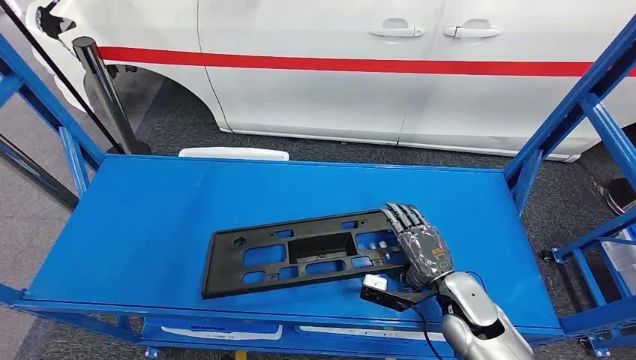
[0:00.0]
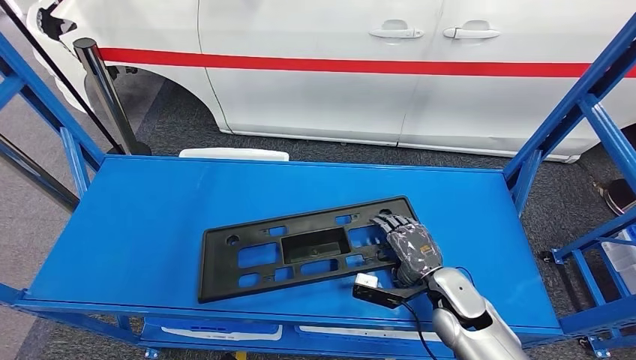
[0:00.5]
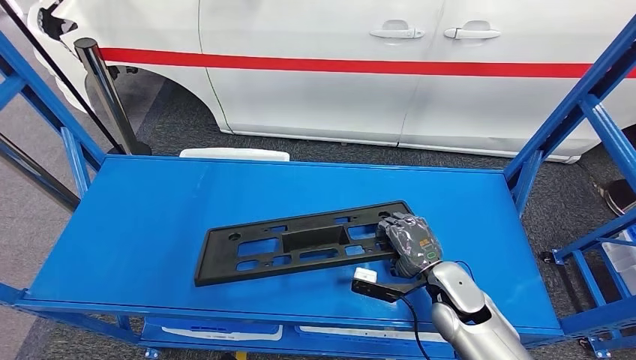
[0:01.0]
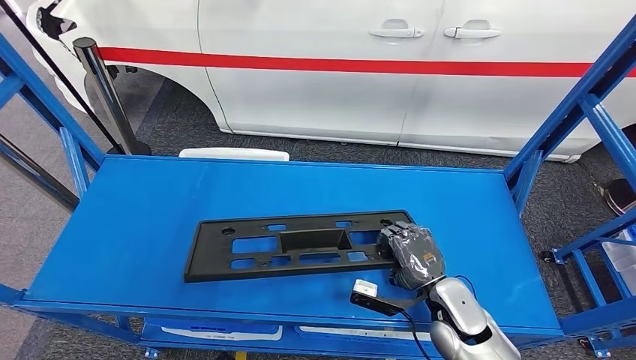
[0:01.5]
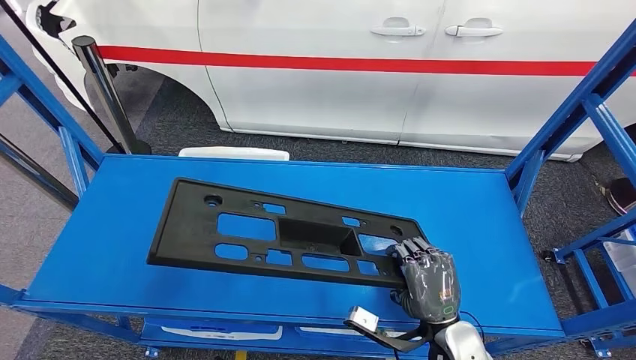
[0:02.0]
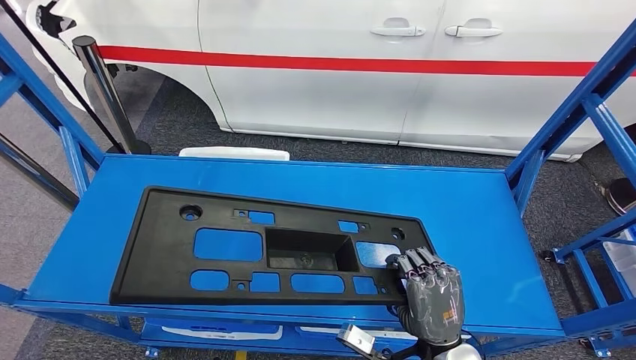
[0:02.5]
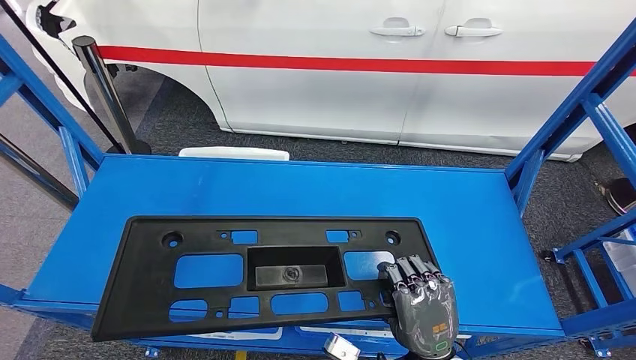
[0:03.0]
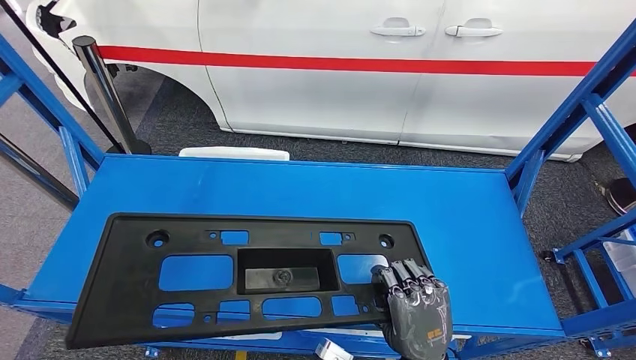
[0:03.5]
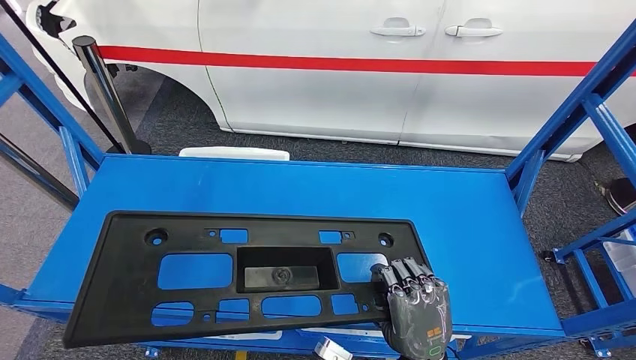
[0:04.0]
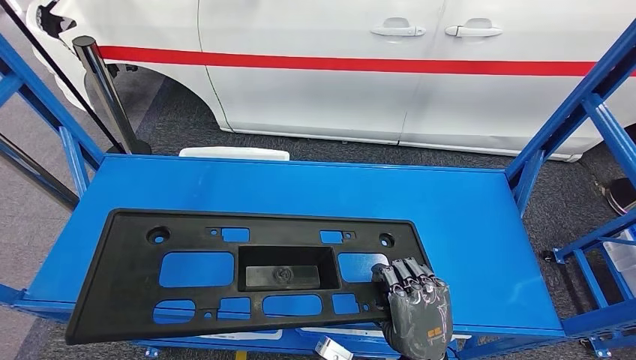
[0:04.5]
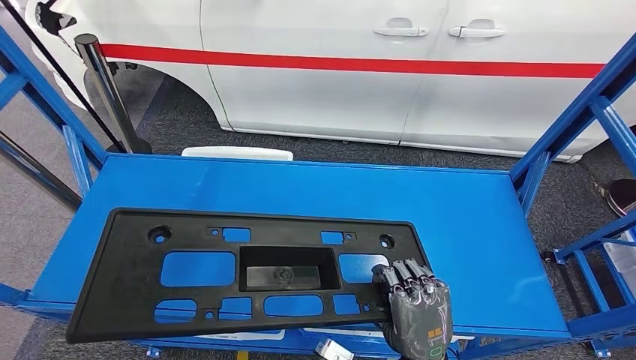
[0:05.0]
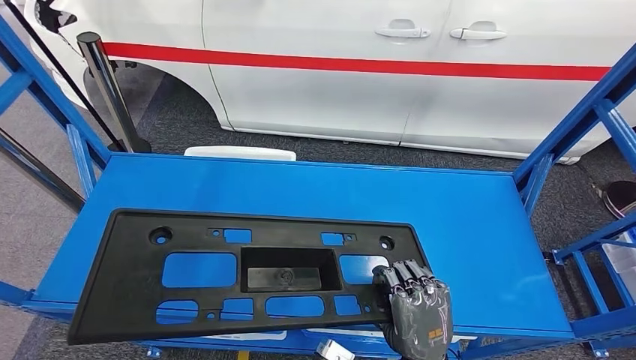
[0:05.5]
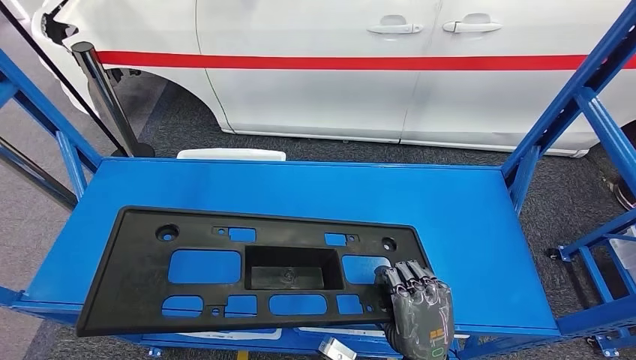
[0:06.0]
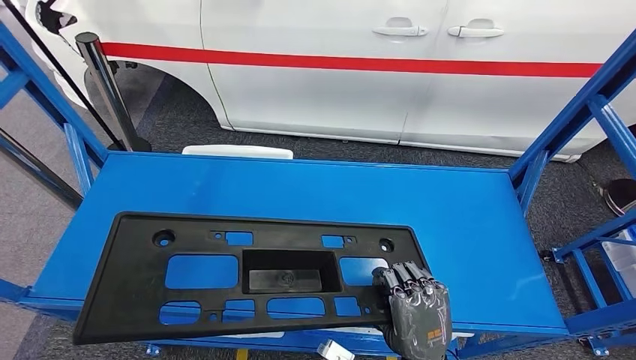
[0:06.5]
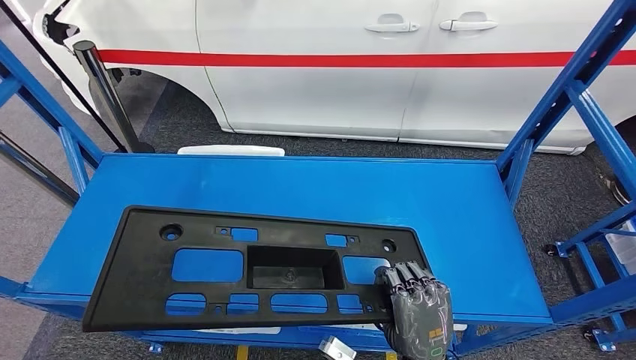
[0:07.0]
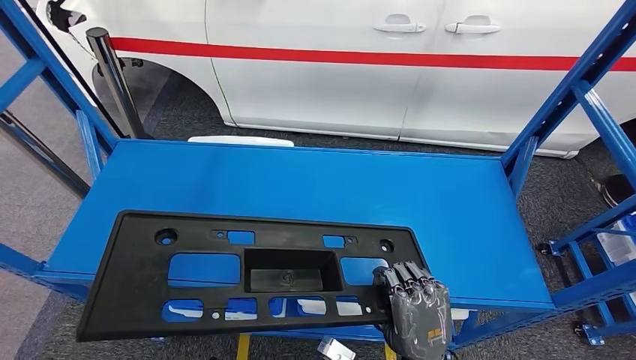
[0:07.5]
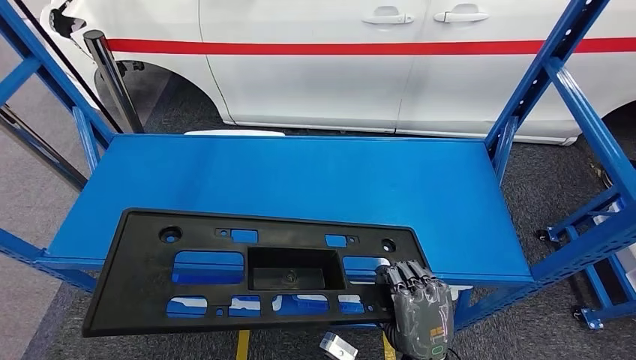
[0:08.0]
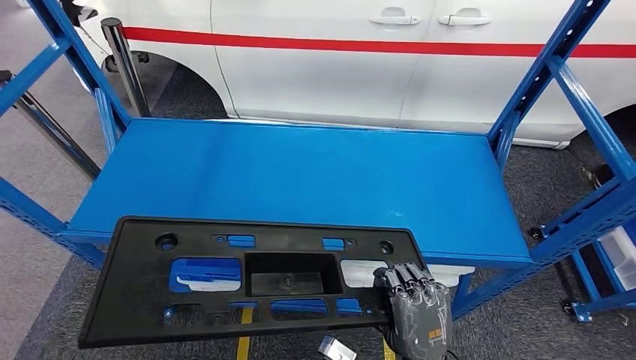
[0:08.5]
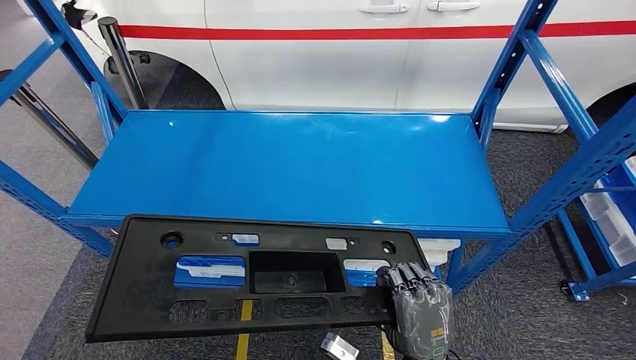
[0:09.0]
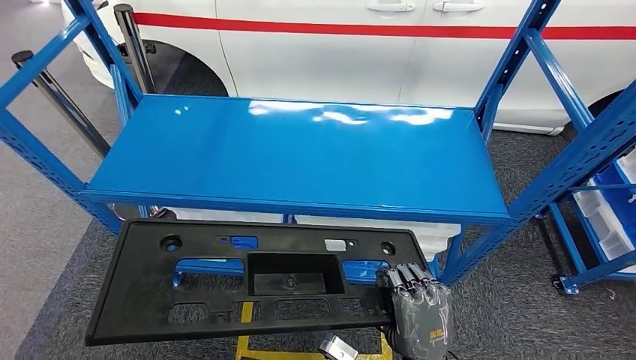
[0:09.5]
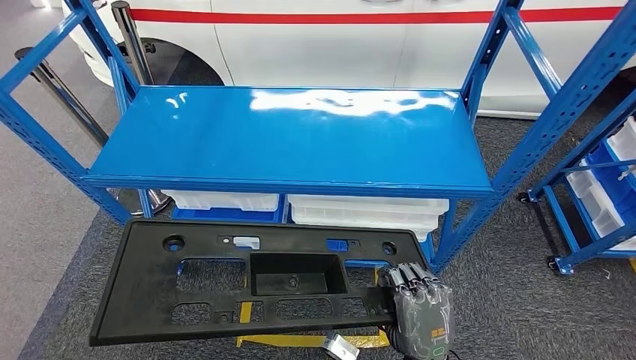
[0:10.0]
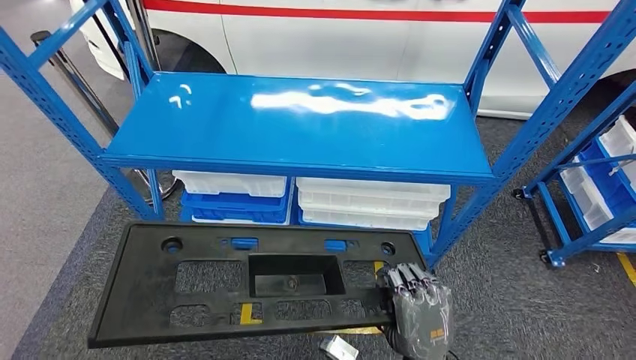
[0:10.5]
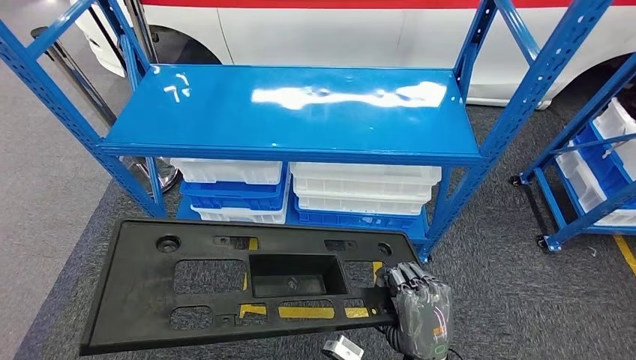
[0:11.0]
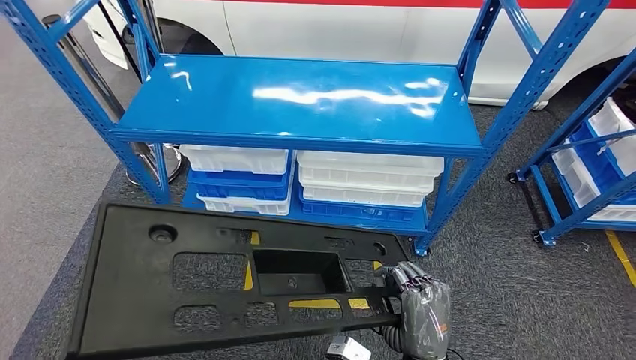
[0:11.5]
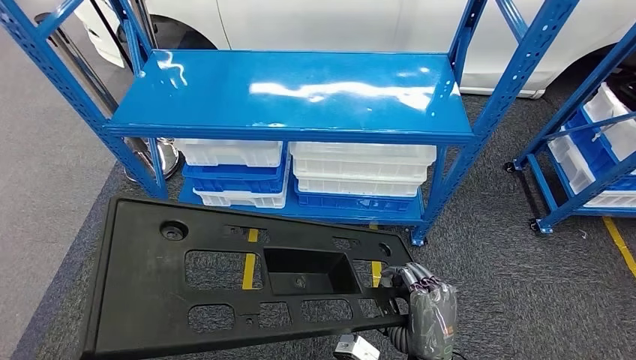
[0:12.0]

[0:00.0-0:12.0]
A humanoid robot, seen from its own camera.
Step, 0:00.0 to 0:10.5: Pick up the large material from the shelf.
0:02.0 to 0:04.0: The right hand travels backward and to the left by approximately 10 cm.
0:04.0 to 0:06.0: Both hands stay put.

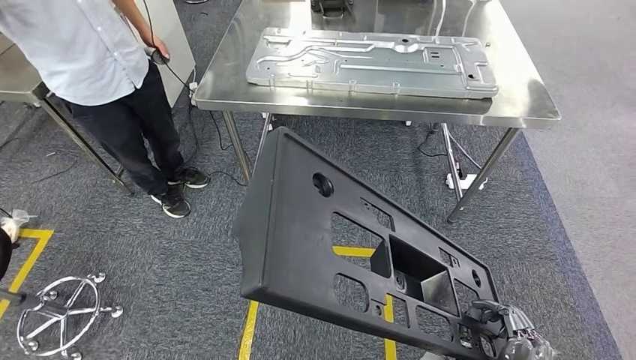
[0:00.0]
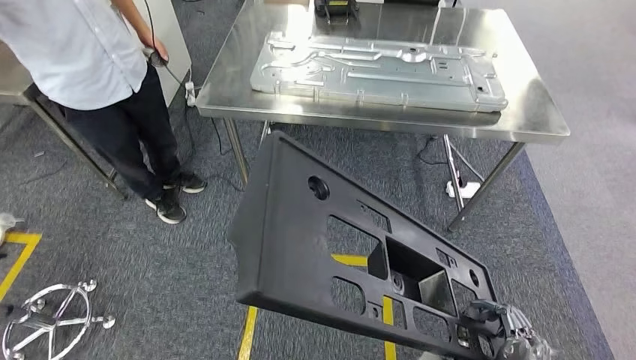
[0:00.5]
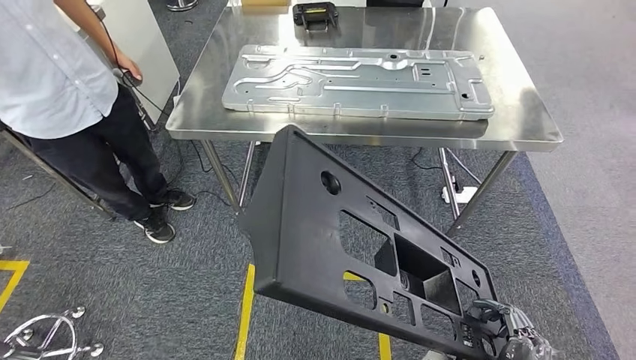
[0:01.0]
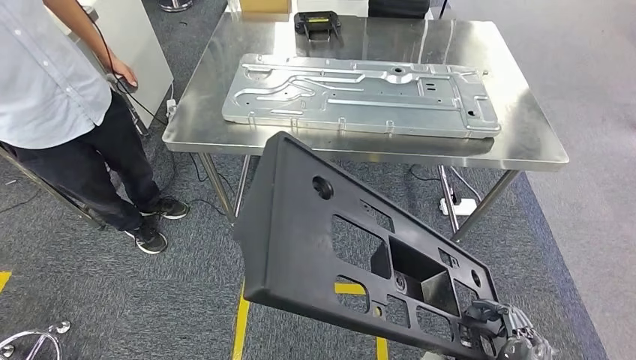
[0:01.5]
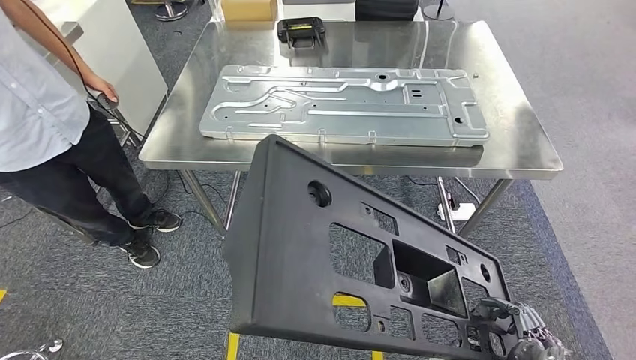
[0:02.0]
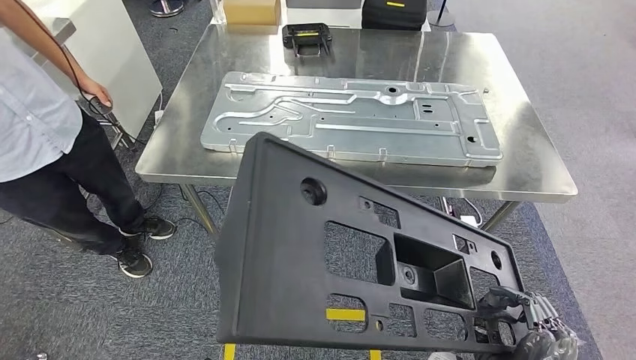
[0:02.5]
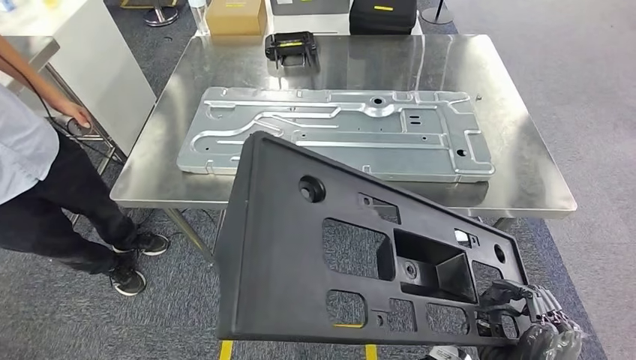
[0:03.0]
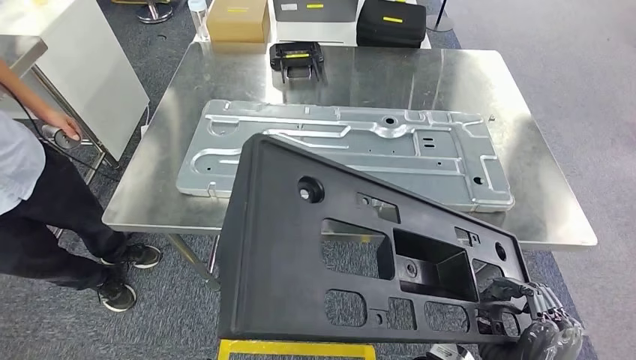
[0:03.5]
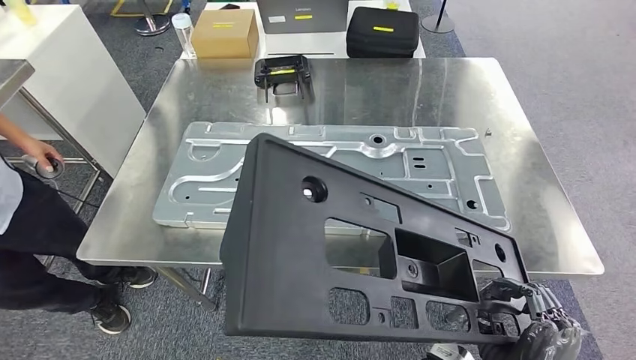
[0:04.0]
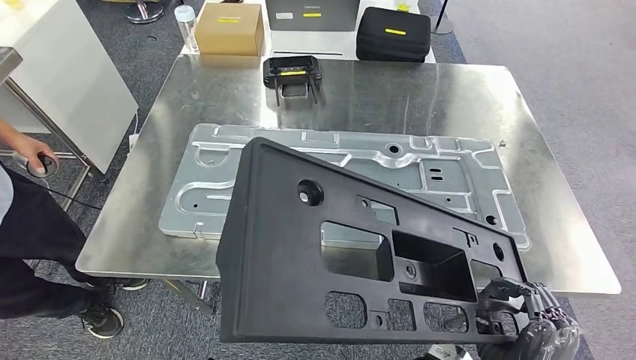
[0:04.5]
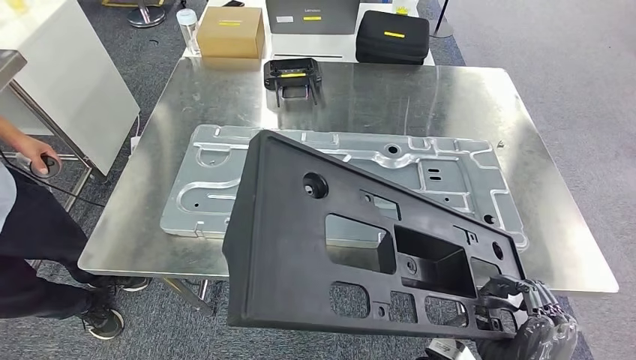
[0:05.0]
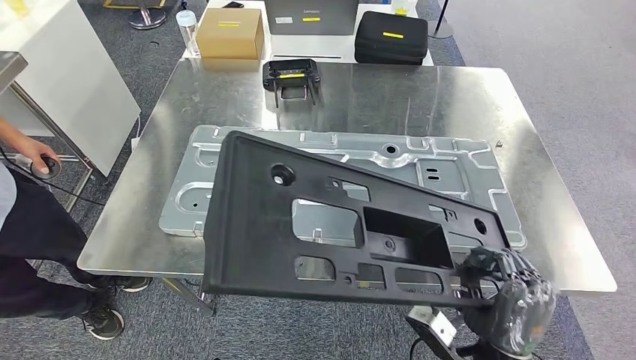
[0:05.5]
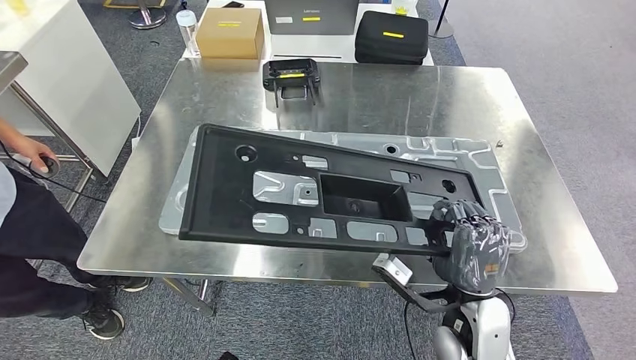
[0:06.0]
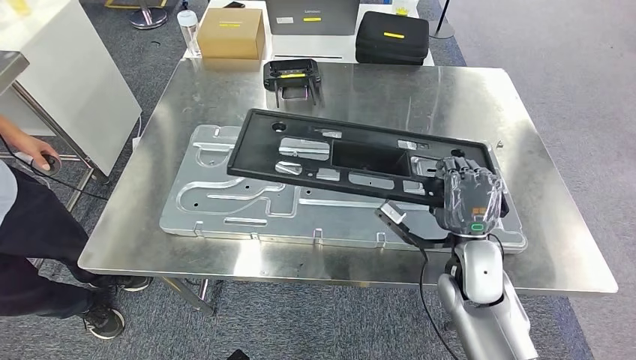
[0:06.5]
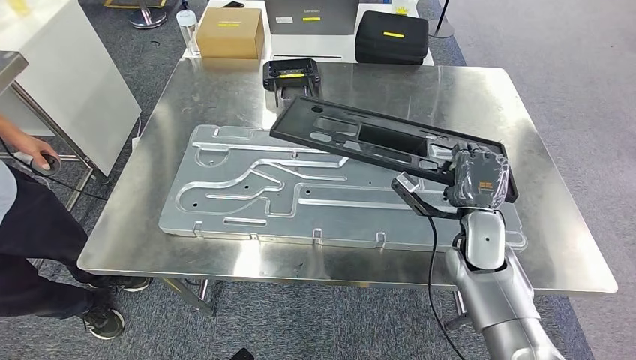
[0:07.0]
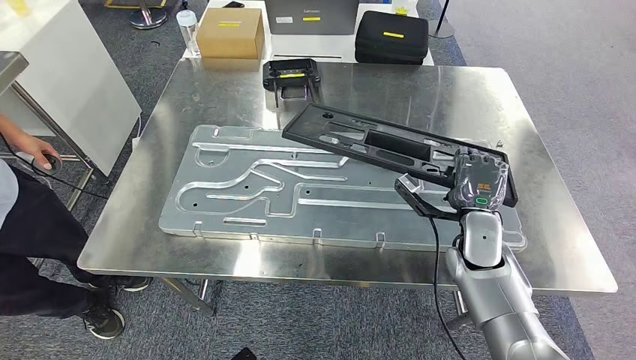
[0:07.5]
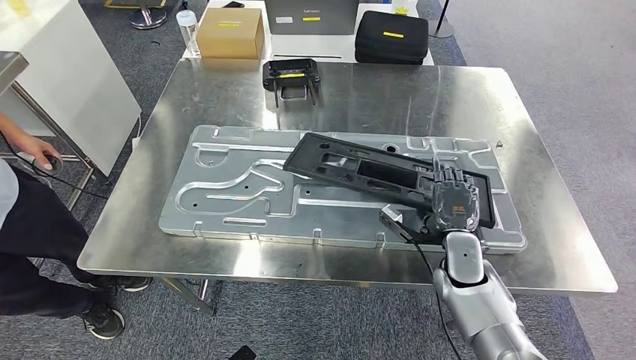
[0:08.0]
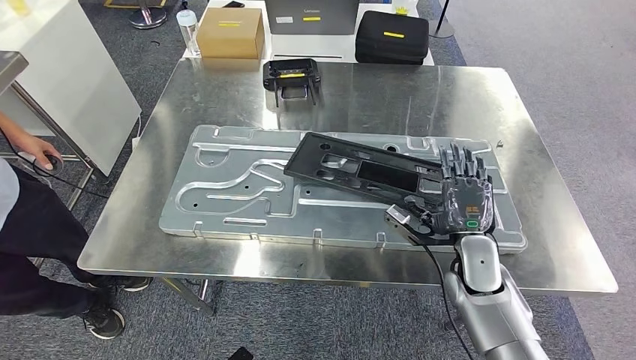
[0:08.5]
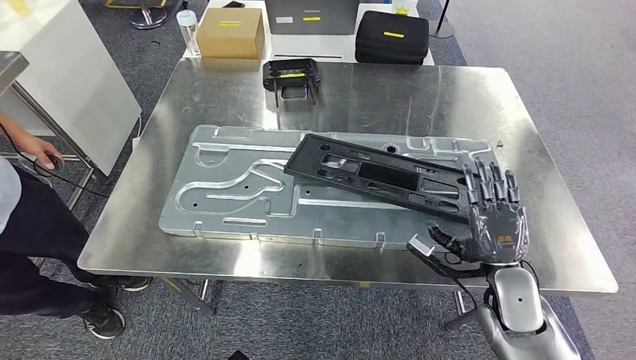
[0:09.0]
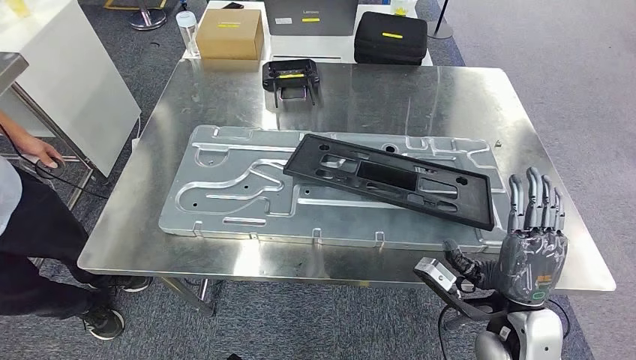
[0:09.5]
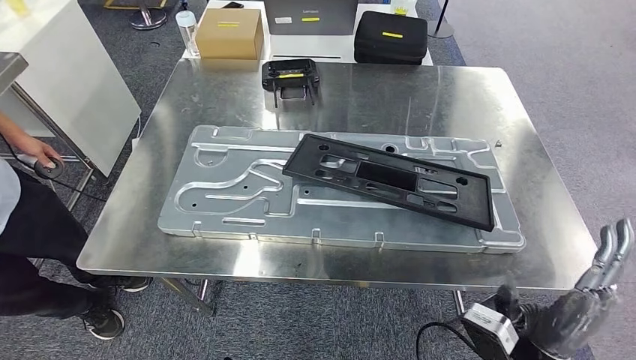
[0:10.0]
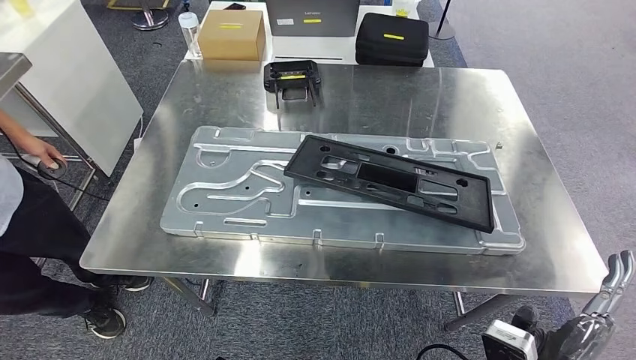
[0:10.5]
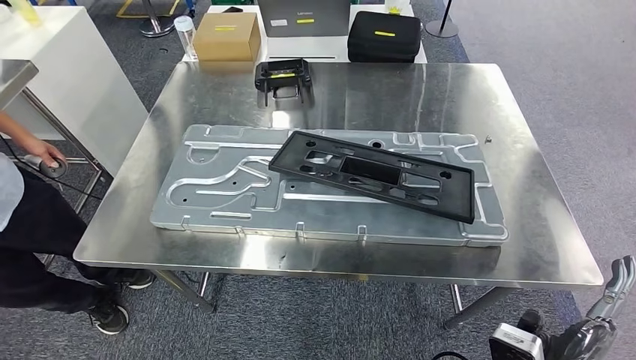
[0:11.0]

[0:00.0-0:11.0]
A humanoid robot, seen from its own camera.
Step, 0:00.0 to 0:03.5: Move the large material to the workbench.
0:07.5 to 0:09.0: The right hand shifts roughly 10 cm backward.
